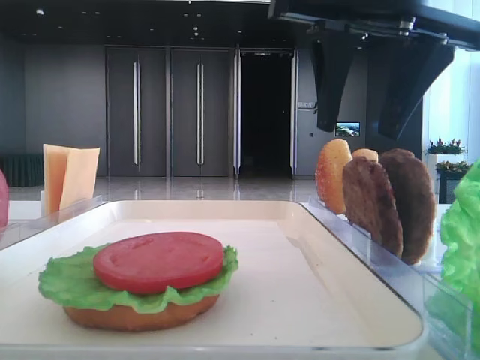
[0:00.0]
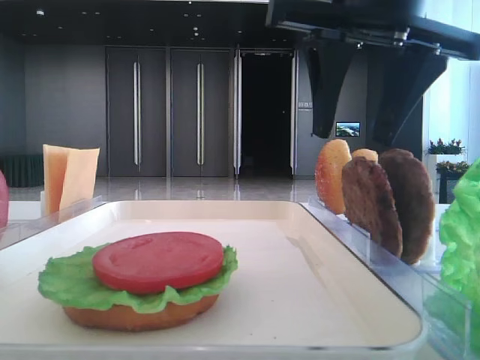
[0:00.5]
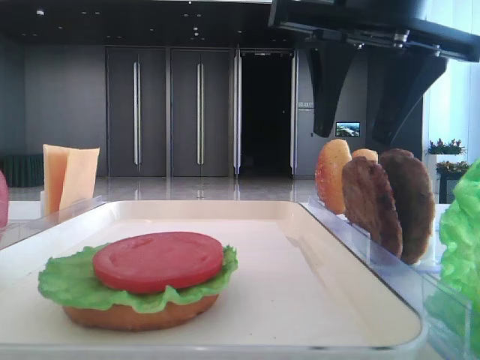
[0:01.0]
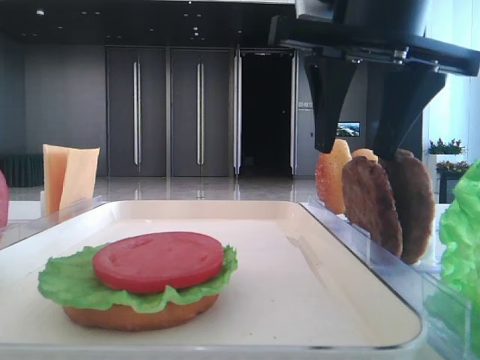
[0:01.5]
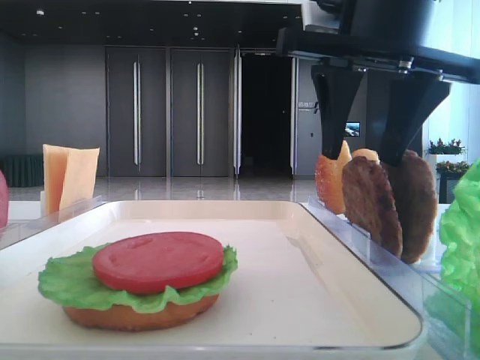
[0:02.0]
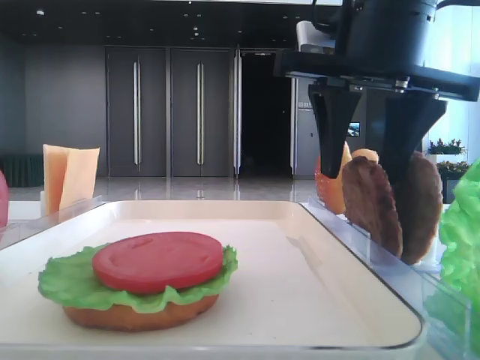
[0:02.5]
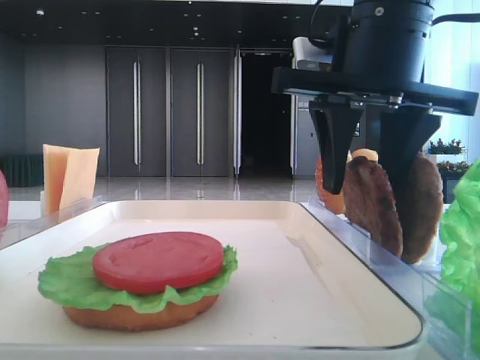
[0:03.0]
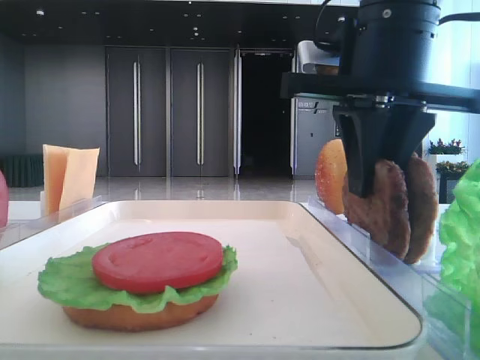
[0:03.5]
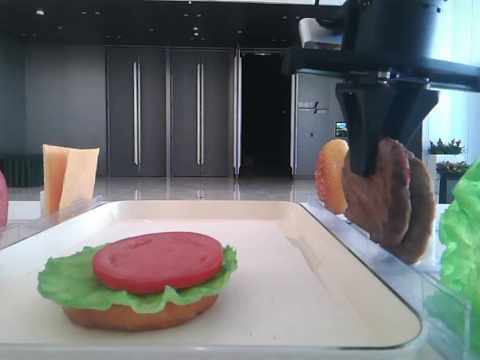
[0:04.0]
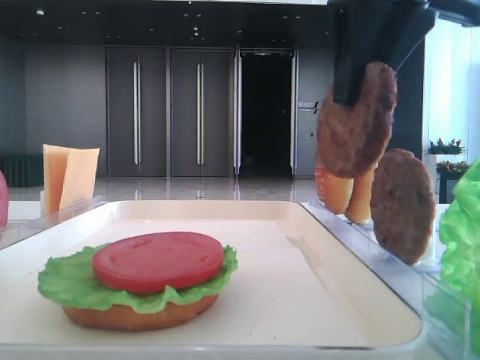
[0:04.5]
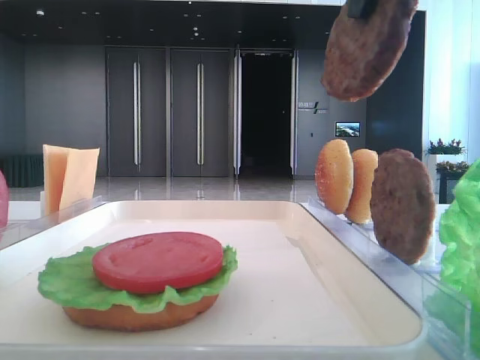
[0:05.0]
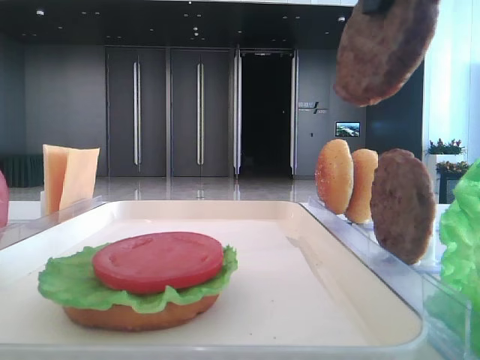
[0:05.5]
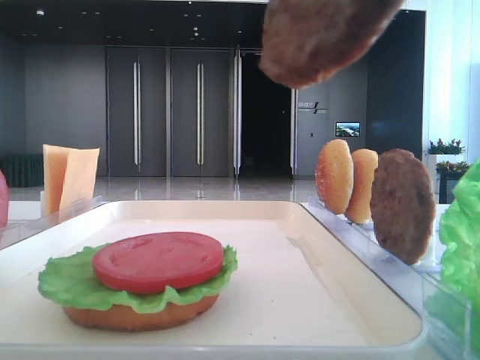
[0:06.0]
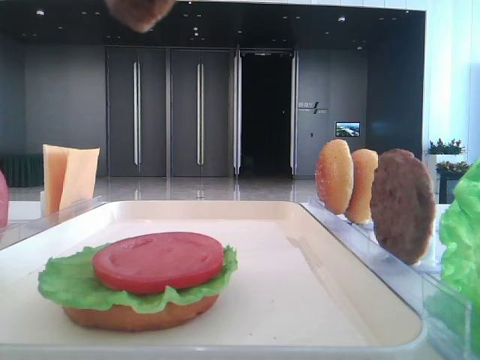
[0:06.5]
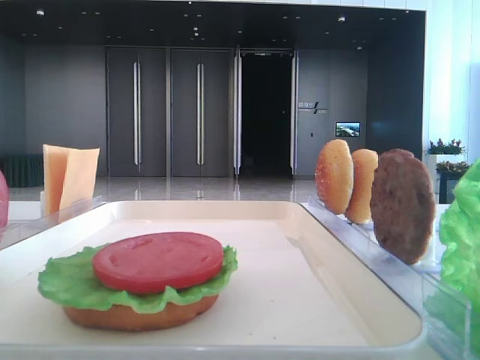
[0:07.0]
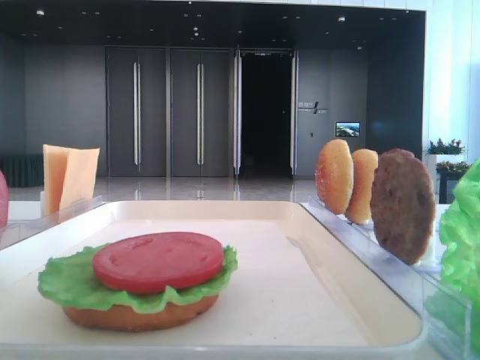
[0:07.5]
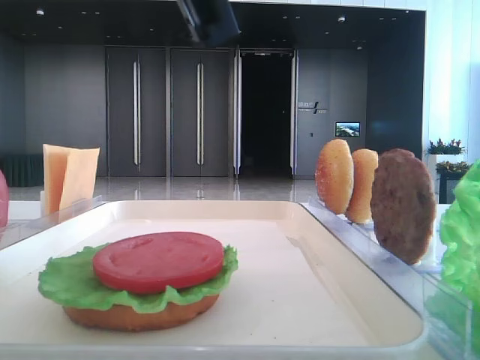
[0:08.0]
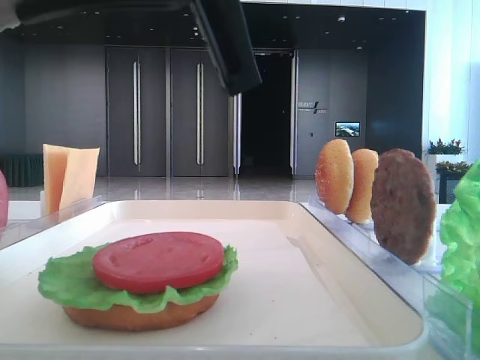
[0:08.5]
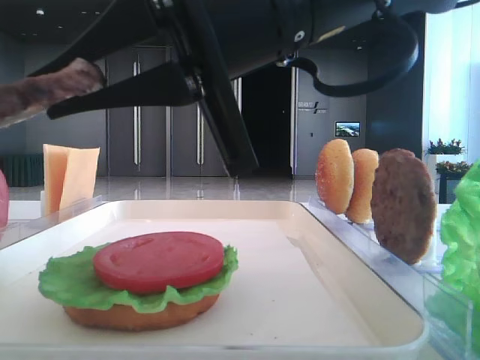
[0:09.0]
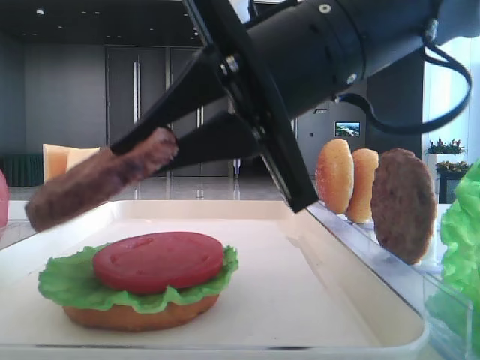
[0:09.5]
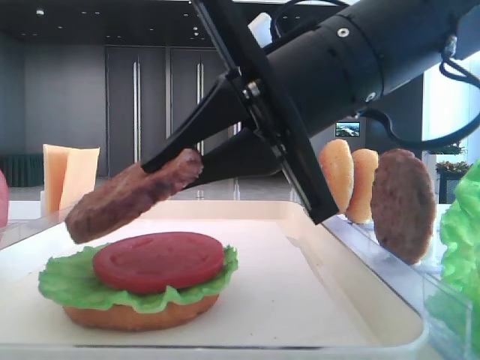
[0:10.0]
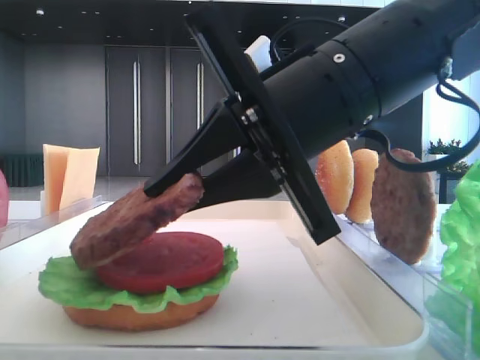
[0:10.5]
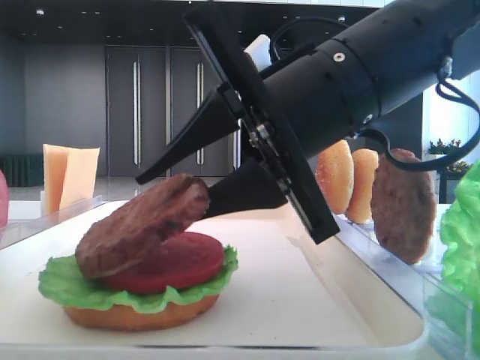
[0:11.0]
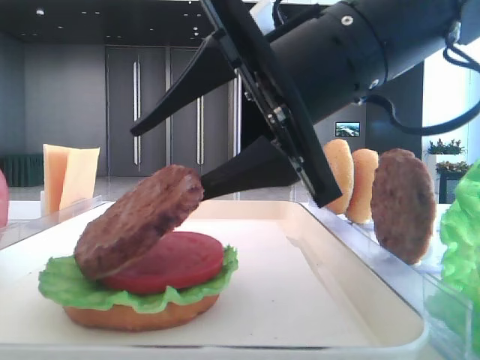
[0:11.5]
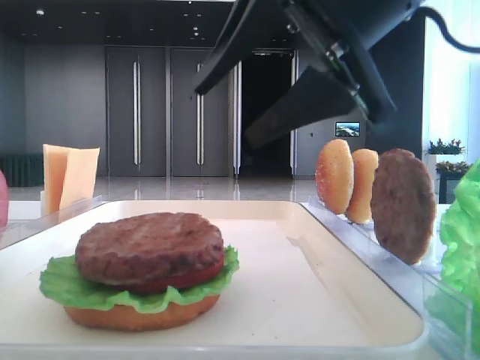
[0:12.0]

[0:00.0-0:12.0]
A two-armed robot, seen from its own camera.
Step, 0:00.0 to 0:03.5: Grab the patty with the right hand.
Step, 0:04.0 to 0:11.5: Place the patty on the tomato slice with the right hand.
0:00.0 to 0:02.0: There are only small adjustments of the grippers.
0:02.0 to 0:04.0: The right gripper closes.
0:04.0 to 0:06.0: The right gripper goes roughly 15 cm backward and upward.
0:06.0 to 0:08.0: The right gripper heads to the left and downward, covering approximately 10 cm.
0:08.0 to 0:10.0: The right gripper is displaced downward, forward and to the right by approximately 15 cm.
0:10.0 to 0:12.0: The right gripper travels upward by about 5 cm, and opens up.

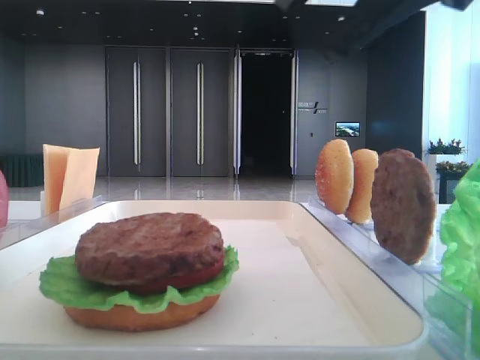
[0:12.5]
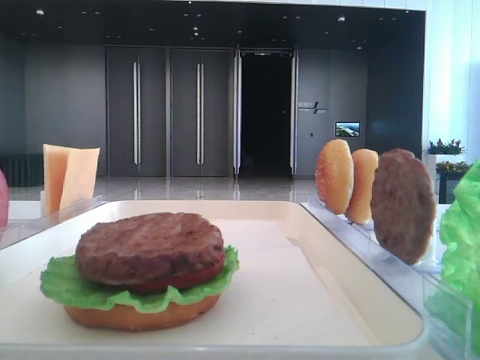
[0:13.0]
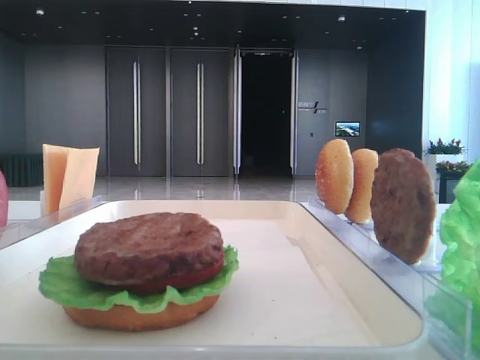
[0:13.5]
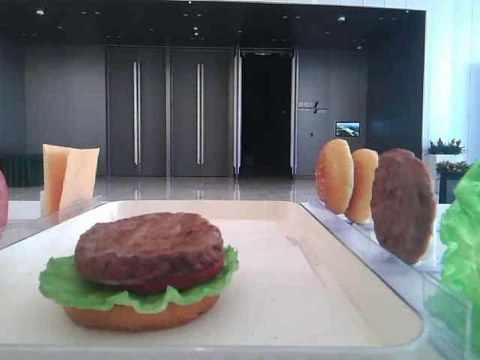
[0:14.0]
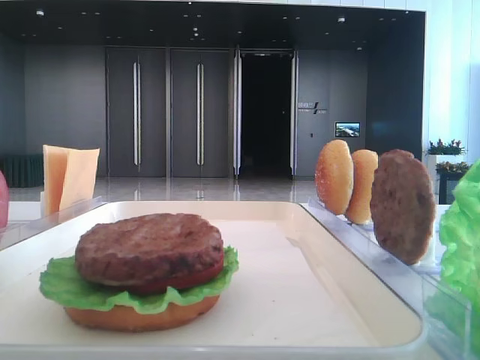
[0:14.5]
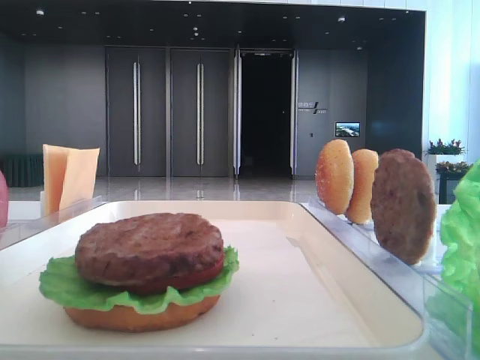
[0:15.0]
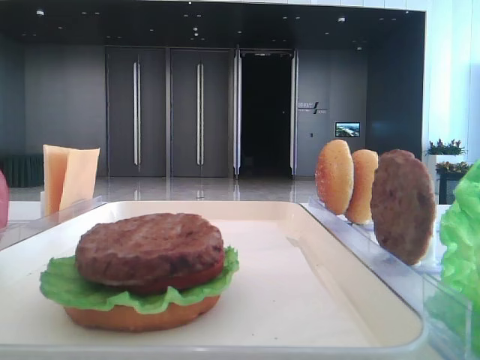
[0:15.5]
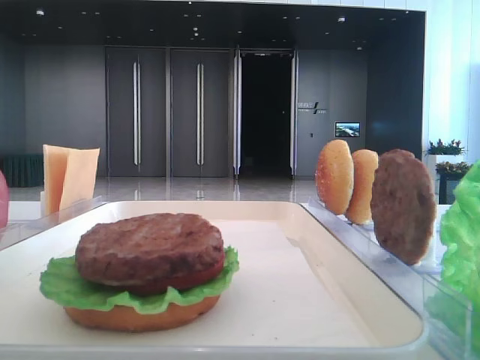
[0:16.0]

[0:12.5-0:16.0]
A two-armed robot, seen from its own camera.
0:12.5 to 0:14.5: The right gripper heads to the right, backward and upward, covering roughly 20 cm.

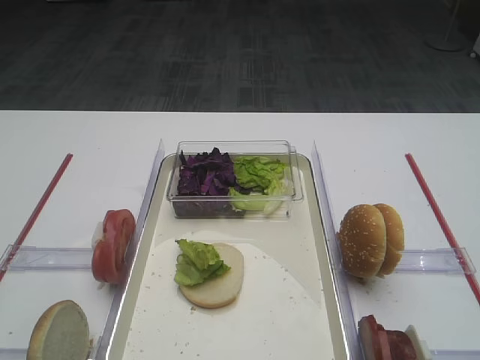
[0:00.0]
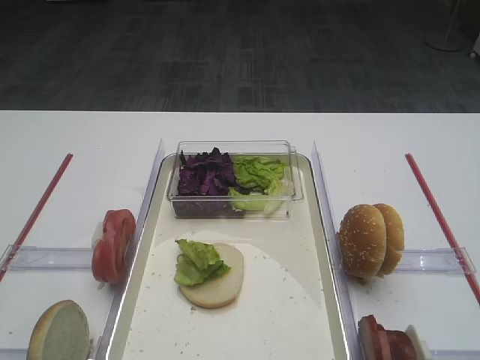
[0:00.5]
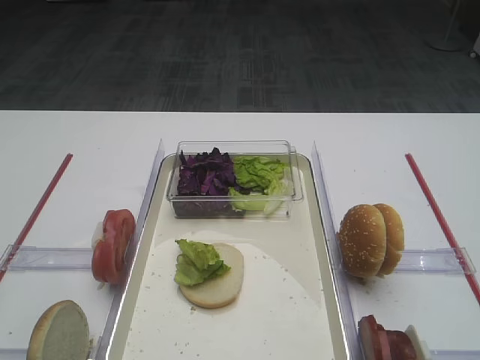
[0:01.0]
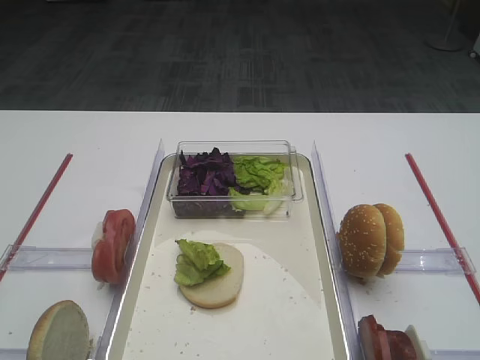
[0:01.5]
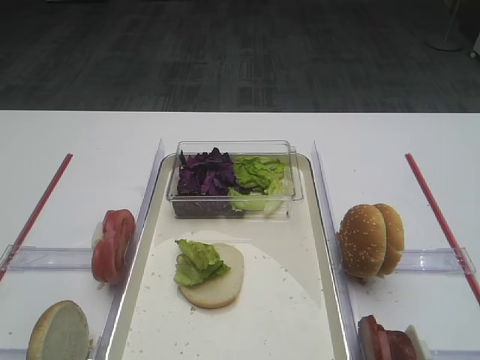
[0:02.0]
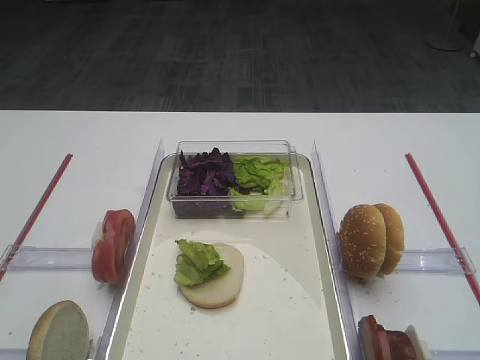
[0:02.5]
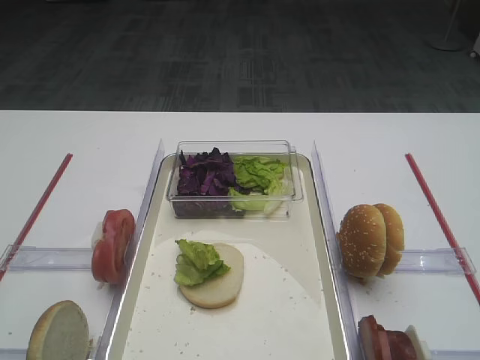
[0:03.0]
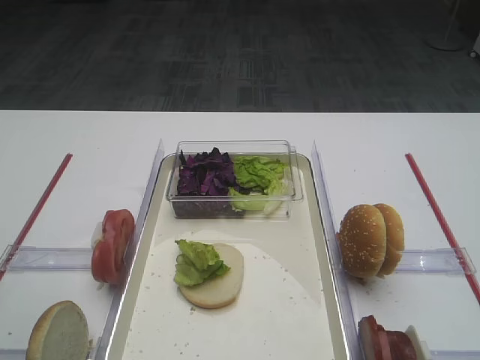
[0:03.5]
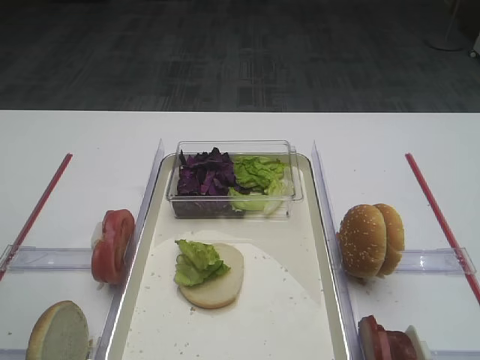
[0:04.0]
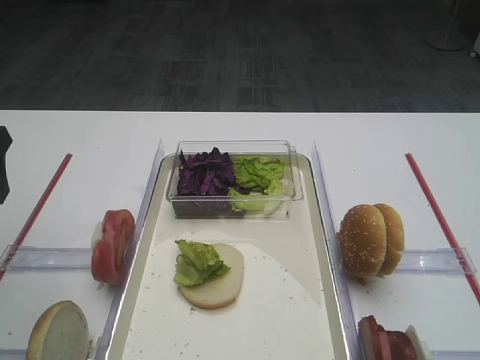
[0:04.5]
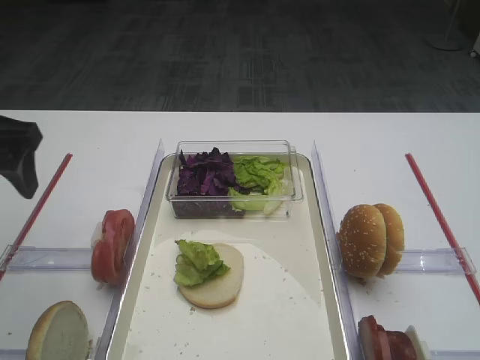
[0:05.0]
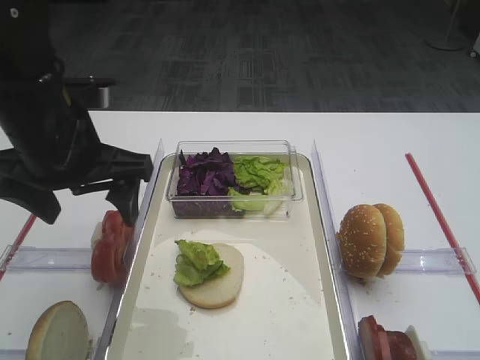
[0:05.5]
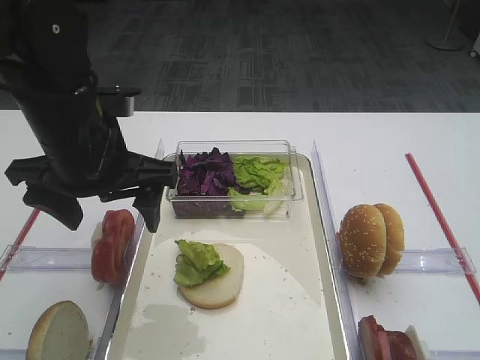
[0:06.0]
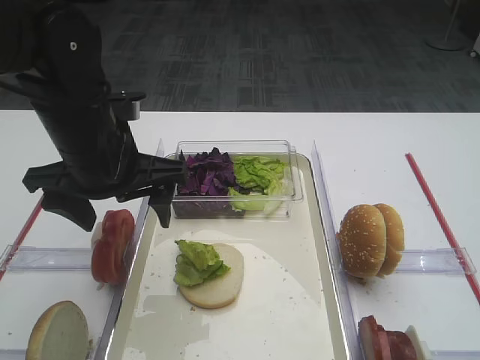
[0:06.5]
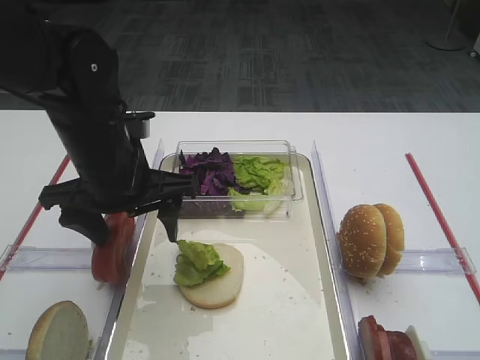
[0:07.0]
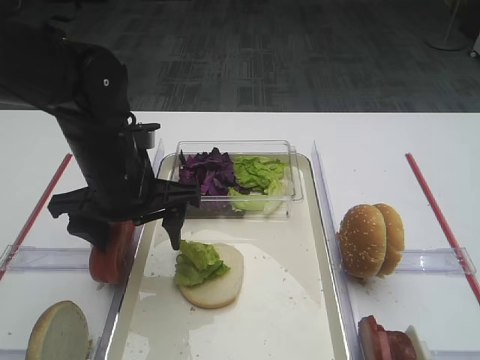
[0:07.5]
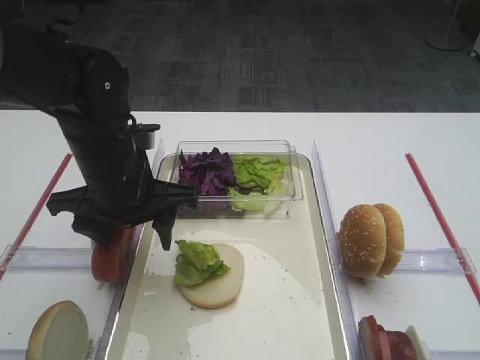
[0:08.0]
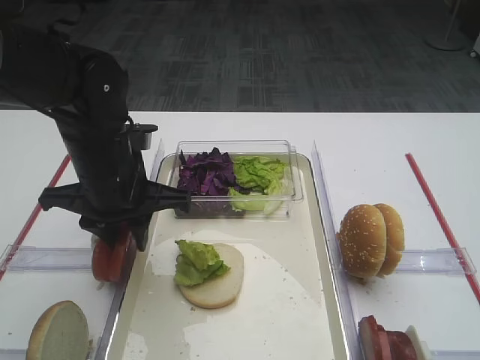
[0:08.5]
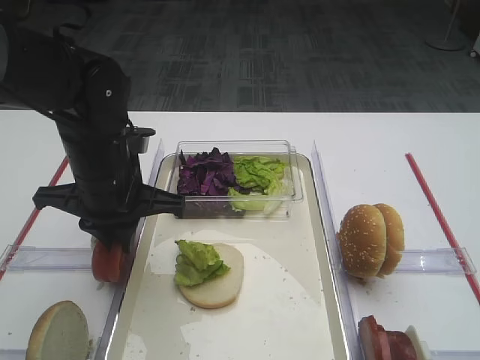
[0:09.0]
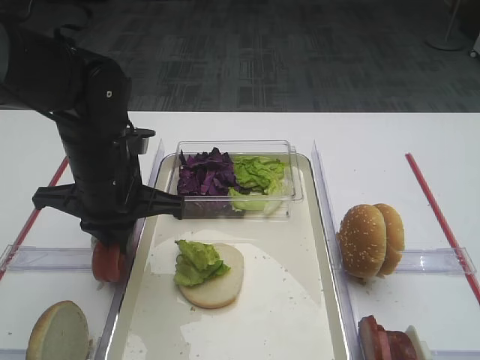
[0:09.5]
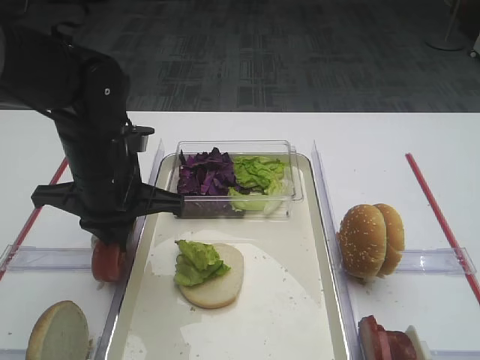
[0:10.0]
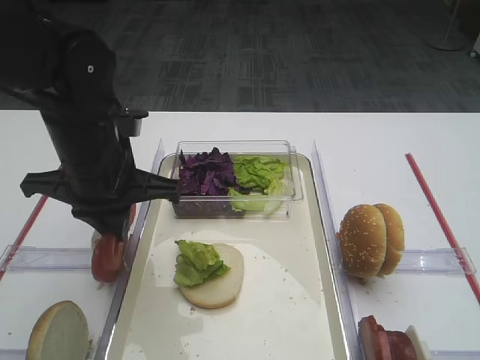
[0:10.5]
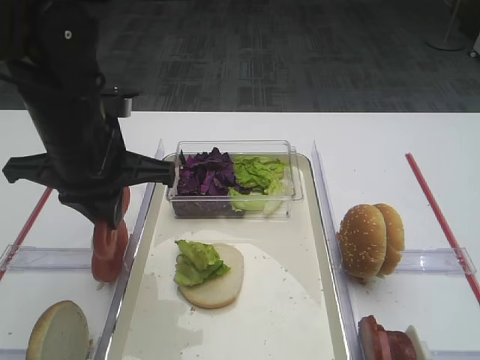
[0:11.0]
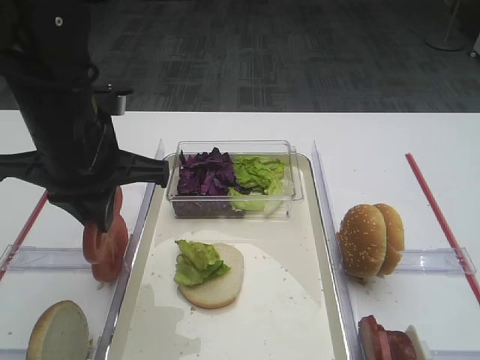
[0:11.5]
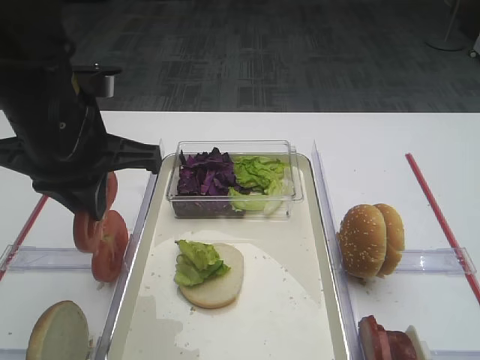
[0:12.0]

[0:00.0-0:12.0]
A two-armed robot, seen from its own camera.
Step, 0:00.0 to 0:10.5: Pick up the tomato slice with the left gripper.
0:04.0 to 0:06.0: The left gripper shifts roughly 15 cm to the right and forward.
0:06.0 to 0:08.0: The left gripper shifts roughly 5 cm downward.
0:08.0 to 0:10.0: The left gripper closes its fingers.
0:10.0 to 0:12.0: The left gripper goes approximately 10 cm upward.
